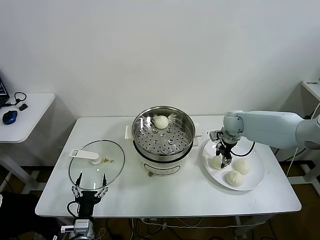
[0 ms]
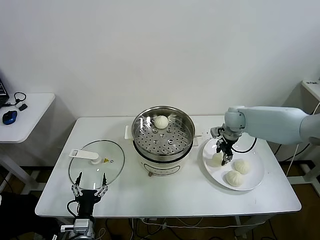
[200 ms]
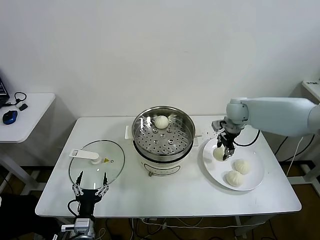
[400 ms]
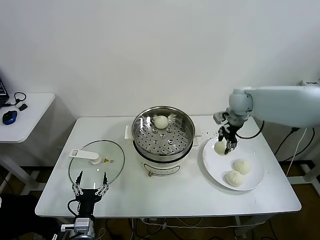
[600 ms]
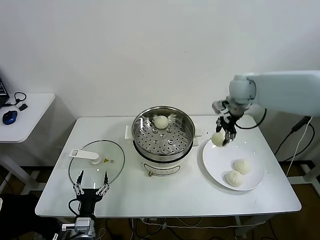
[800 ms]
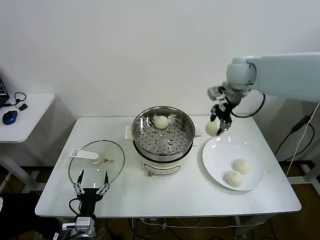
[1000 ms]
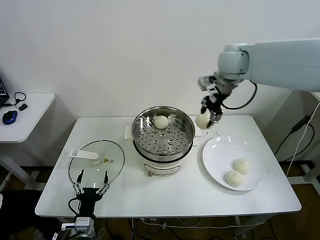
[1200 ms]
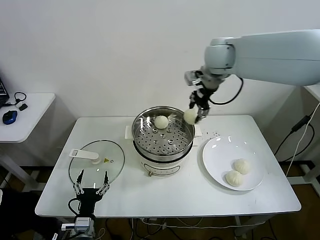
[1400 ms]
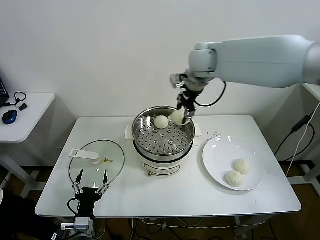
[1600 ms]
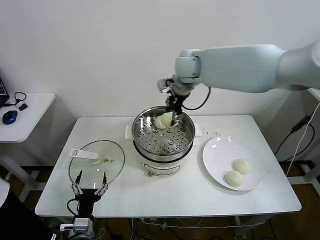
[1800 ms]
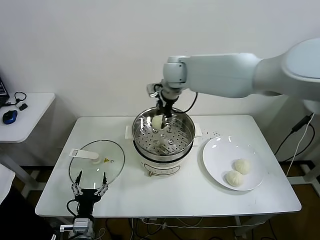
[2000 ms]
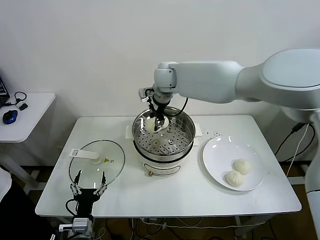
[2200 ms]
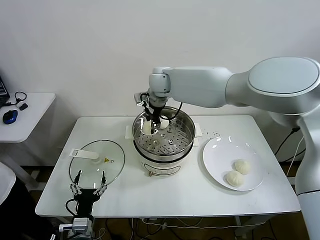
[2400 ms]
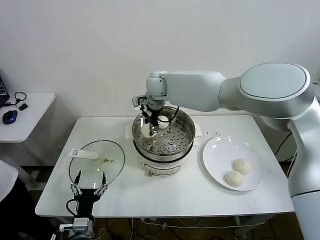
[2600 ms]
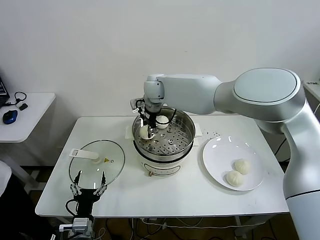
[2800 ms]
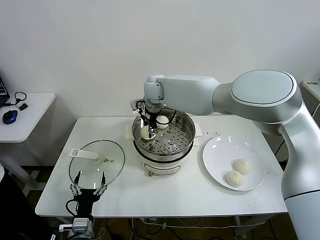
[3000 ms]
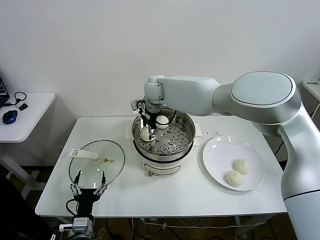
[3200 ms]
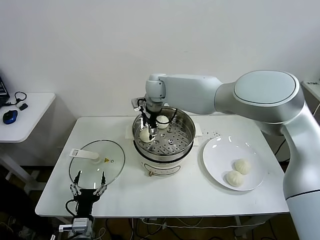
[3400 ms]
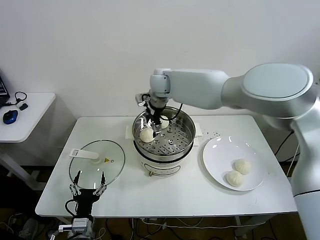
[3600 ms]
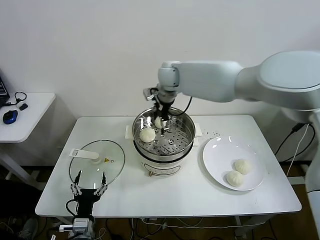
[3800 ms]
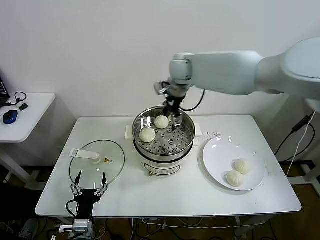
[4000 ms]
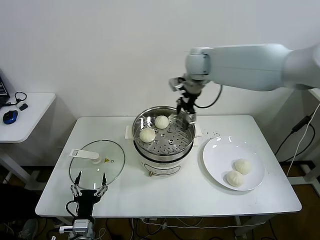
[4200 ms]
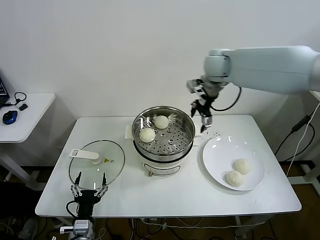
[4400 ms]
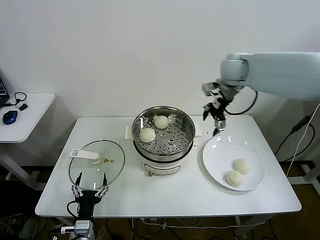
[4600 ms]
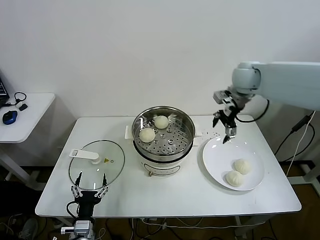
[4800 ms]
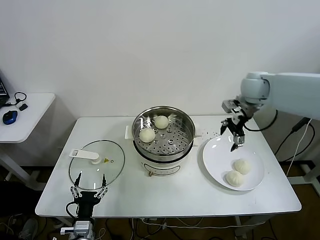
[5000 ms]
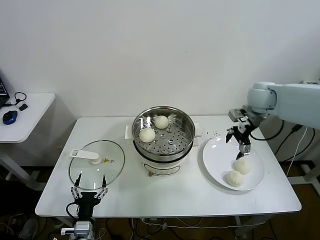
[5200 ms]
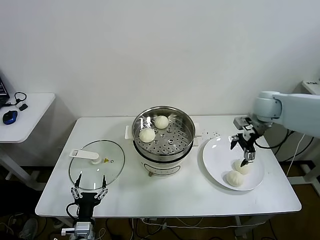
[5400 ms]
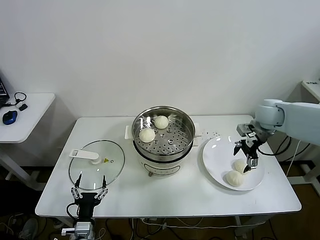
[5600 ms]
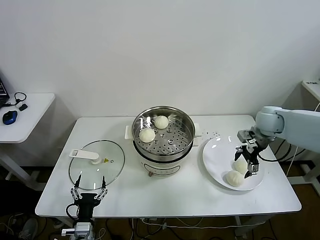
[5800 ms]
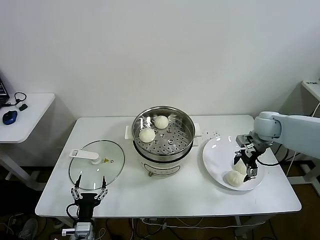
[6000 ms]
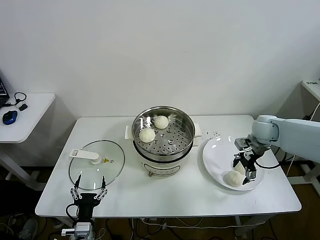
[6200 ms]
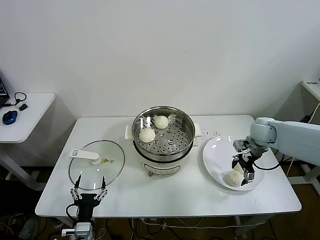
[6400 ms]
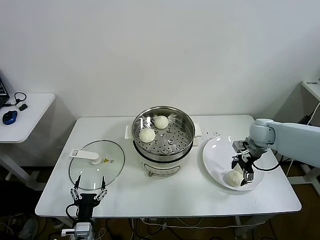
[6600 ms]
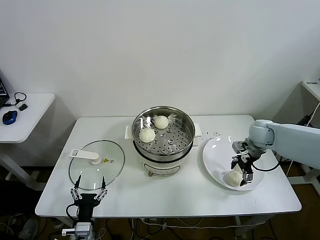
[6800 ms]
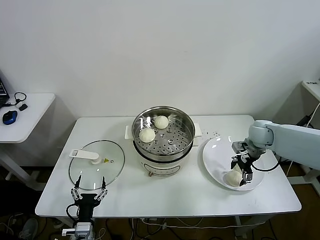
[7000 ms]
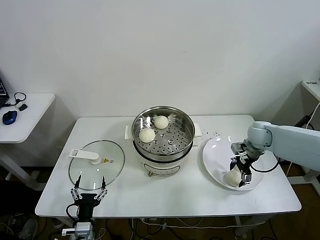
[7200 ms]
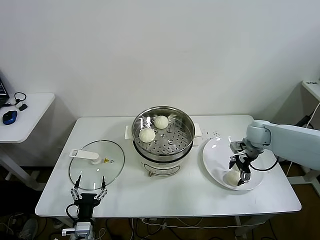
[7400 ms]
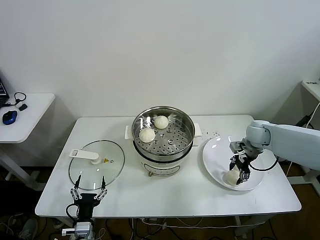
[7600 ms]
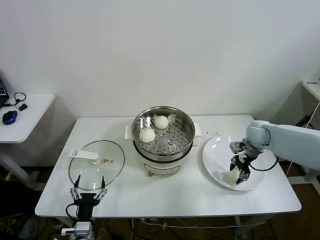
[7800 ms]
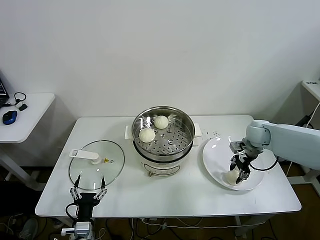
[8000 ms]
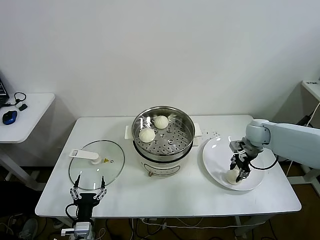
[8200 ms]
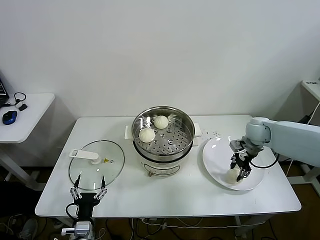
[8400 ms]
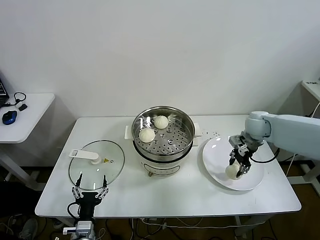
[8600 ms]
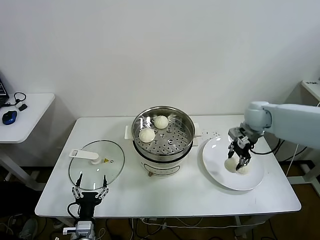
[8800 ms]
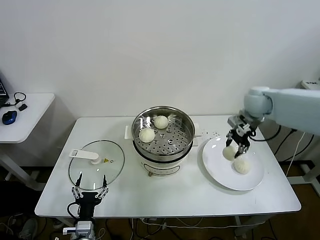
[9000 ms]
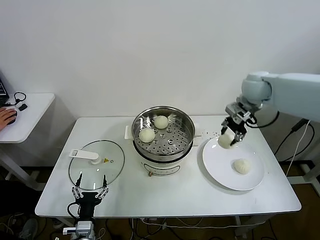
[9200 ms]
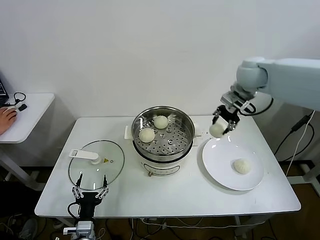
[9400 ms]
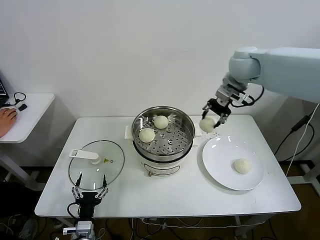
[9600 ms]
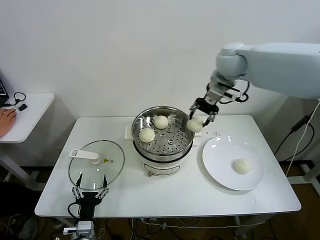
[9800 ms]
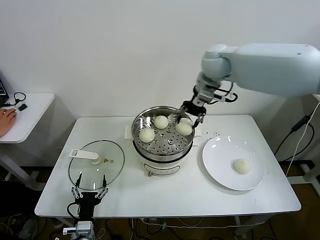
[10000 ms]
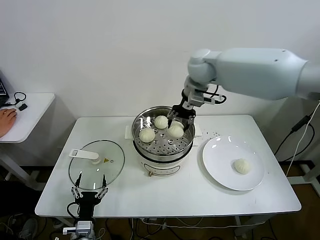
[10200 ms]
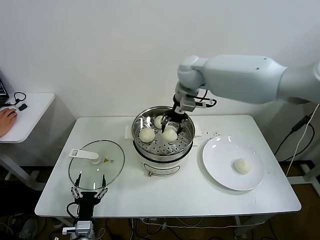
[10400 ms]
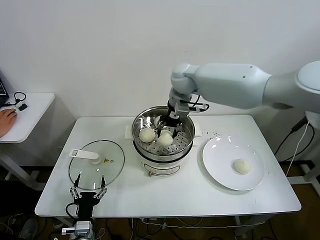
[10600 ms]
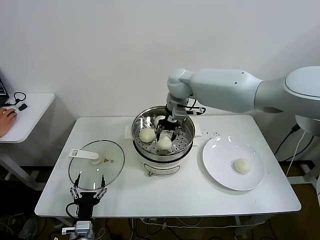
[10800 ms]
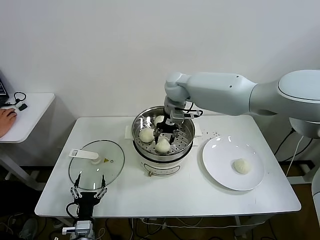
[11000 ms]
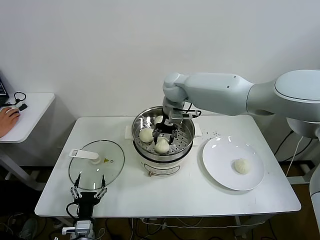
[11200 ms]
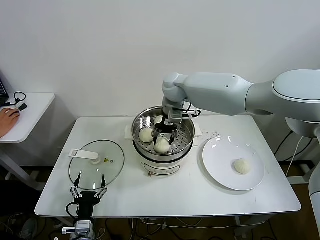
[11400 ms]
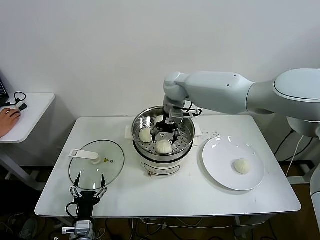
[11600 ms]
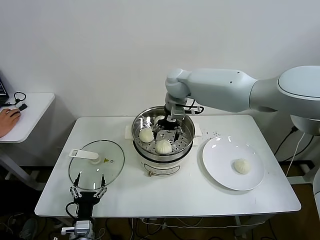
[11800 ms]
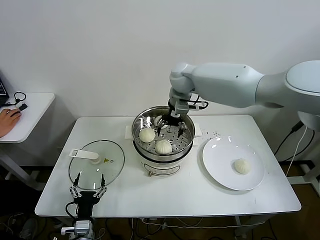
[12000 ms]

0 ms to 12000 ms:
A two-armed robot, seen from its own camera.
Task of the whole recording: take steamed baozi put them in steamer.
Step, 0 ms to 3400 ms: Place the baozi on the steamer with right gripper.
Step, 3600 ms to 7800 ms: Grasp the baozi in the plate with right gripper.
Step, 8000 ms to 11600 ms: Place the baozi on the steamer with right gripper.
0 ms to 1600 ms: The right gripper heads upward and to the left, covering some 30 cm.
1600 ms to 3000 ms: The right gripper shifts roughly 15 cm to the left and downward.
3000 ms to 4400 ms: The right gripper moves to the right and upward, about 25 cm, and opens.
4400 ms to 6000 ms: The right gripper shifts roughly 25 cm downward, to the right and backward.
6000 ms to 7600 ms: The right gripper closes up.
7600 ms to 9000 ms: The right gripper is displaced upward by some 15 cm, and closes up.
9000 ms to 10400 ms: The right gripper travels to the left by roughly 25 cm.
10400 ms to 12000 ms: The right gripper opens its fingers.

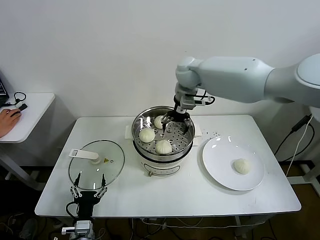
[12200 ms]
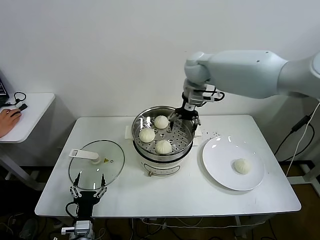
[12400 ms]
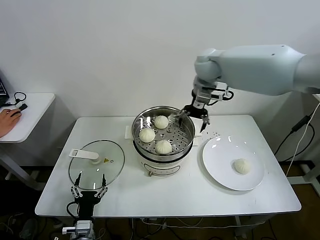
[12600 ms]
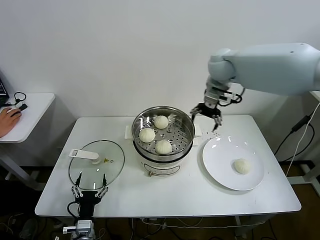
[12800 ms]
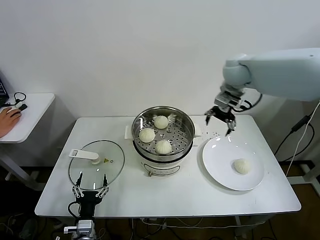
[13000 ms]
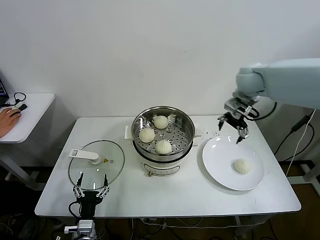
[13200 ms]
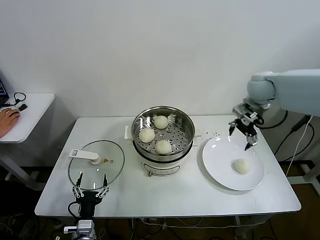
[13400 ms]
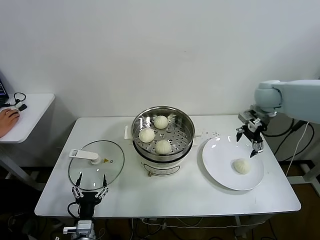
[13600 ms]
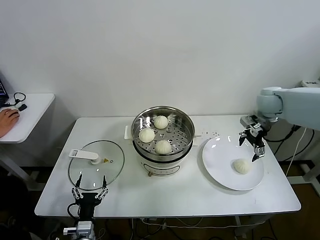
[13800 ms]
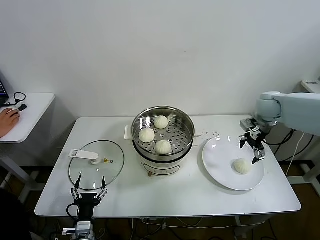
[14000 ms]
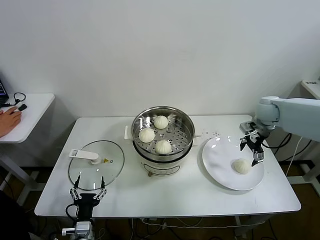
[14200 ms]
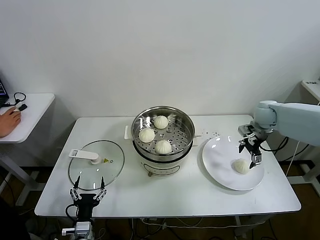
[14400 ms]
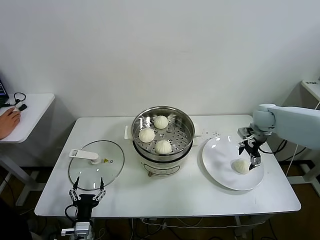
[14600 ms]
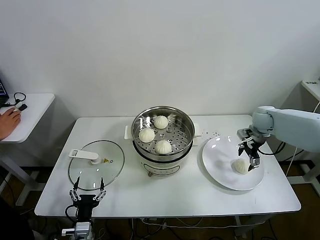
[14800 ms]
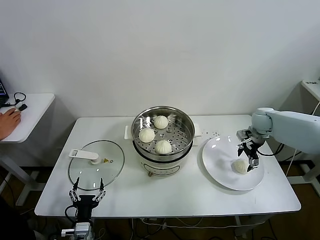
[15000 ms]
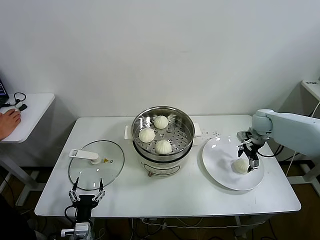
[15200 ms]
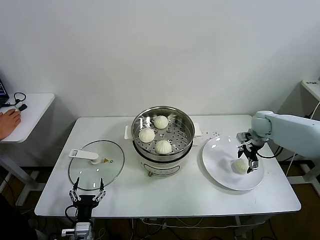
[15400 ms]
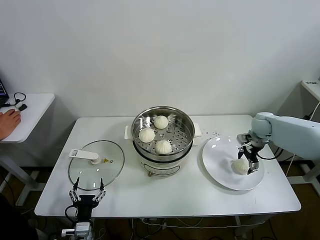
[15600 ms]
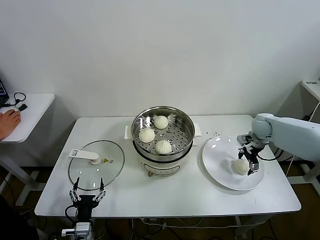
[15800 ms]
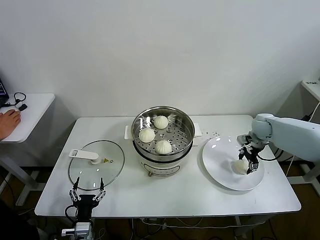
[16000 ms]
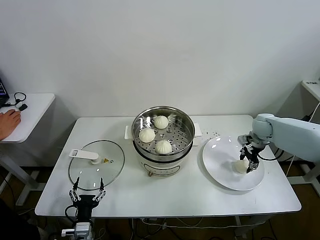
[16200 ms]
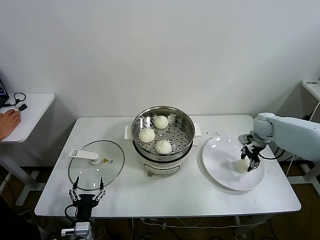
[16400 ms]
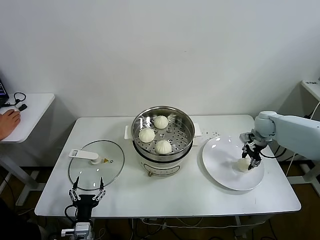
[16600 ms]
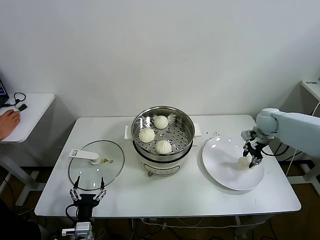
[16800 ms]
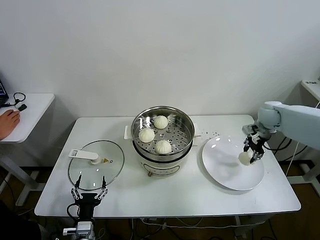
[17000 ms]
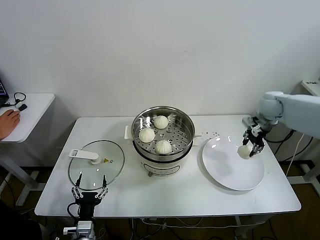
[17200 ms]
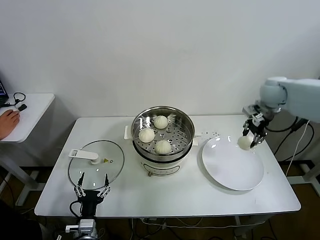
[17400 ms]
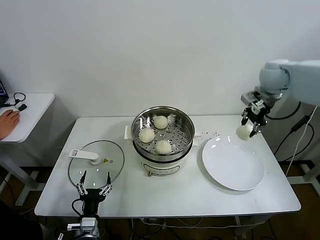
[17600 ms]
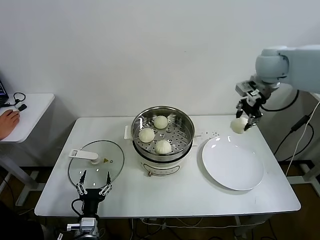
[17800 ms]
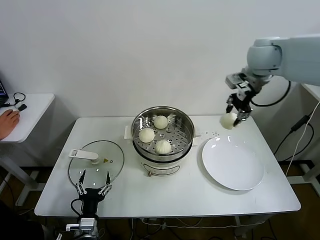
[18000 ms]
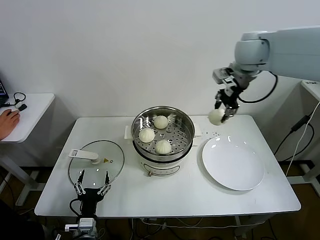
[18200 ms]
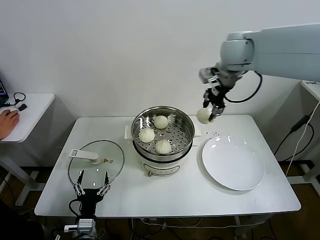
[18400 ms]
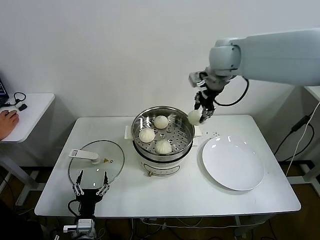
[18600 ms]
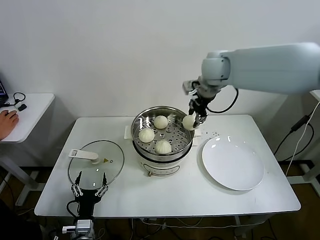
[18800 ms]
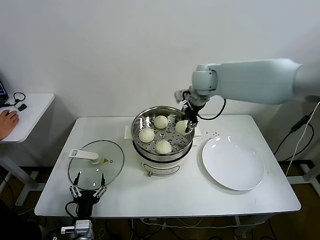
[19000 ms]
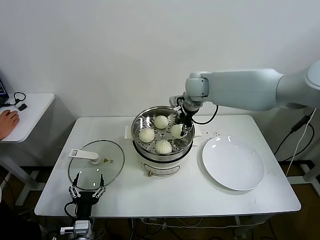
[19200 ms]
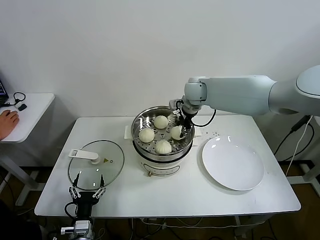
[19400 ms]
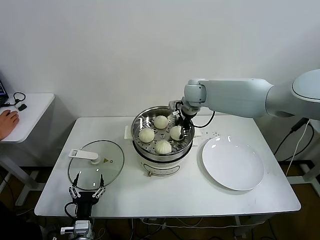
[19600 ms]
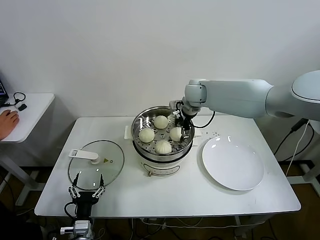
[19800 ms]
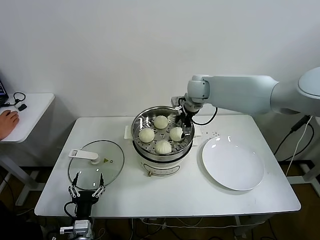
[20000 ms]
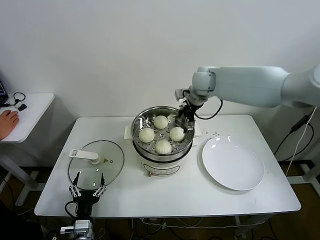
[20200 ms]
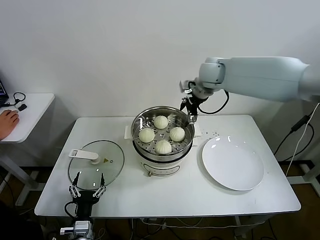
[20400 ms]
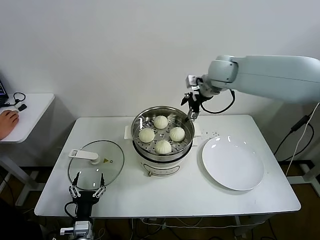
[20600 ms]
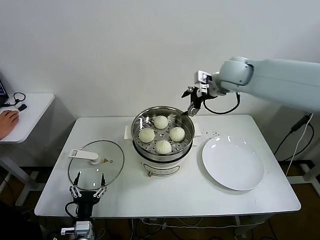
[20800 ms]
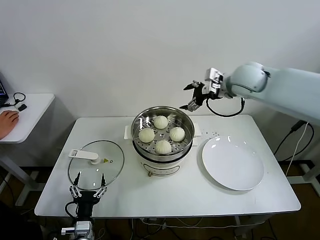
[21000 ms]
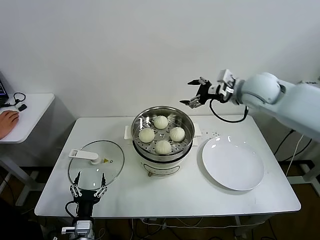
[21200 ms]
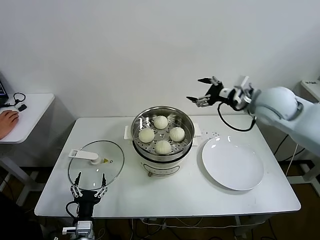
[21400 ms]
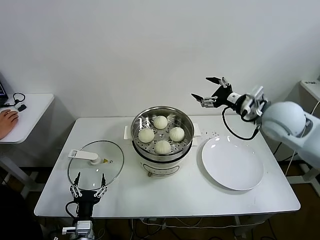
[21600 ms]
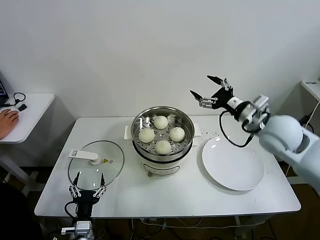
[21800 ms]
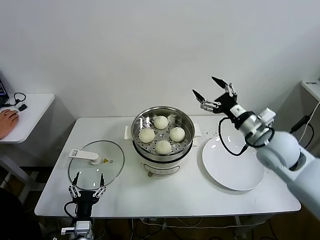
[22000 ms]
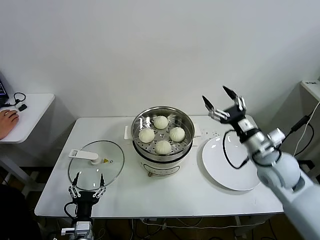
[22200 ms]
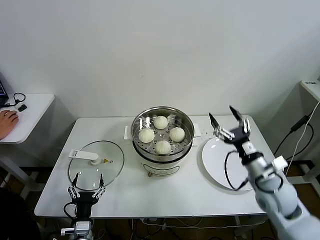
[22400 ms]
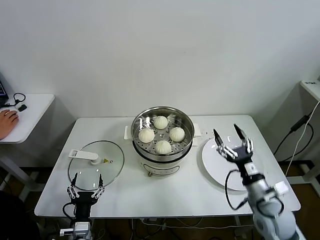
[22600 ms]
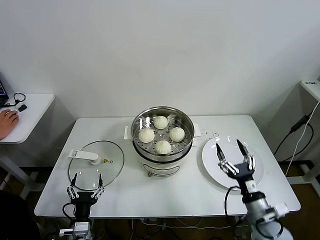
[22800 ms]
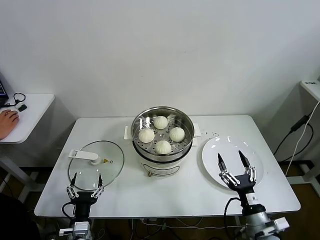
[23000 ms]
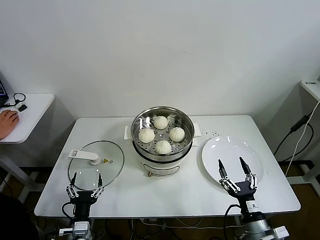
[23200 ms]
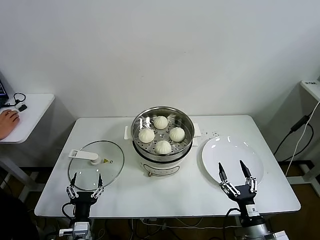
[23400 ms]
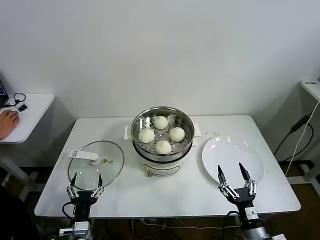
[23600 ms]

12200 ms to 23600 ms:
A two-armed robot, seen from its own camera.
Task of the whole recording: take steamed baozi put them in steamer.
Step, 12200 ms to 16200 ms: Grasp the baozi in the plate with right gripper.
Step, 16400 ms to 19800 ms: Place the baozi on the steamer with right gripper.
12200 ms to 13600 ms: The right gripper heads to the right, covering some 25 cm.
13600 ms to 15000 ms: The right gripper moves downward, approximately 15 cm.
15000 ms to 16400 ms: The right gripper closes its fingers.
16400 ms to 17800 ms: The right gripper travels upward by about 25 cm.
17800 ms to 19400 ms: The right gripper travels to the left and downward by roughly 20 cm.
19400 ms to 20800 ms: The right gripper moves to the right and upward, some 10 cm, and opens up.
20800 ms to 22200 ms: The right gripper goes some 30 cm backward, downward and to the right.
22200 ms to 23600 ms: The right gripper shifts roughly 30 cm backward and downward.
